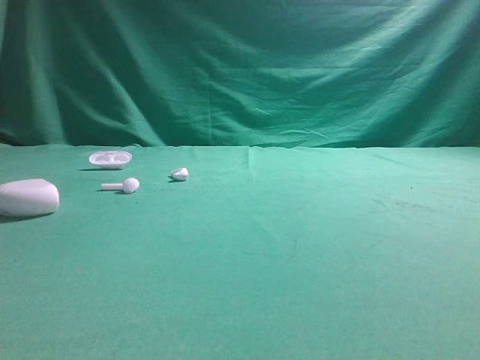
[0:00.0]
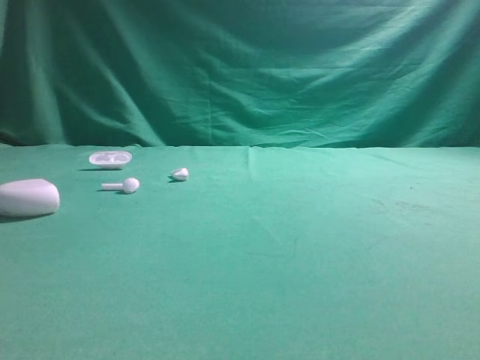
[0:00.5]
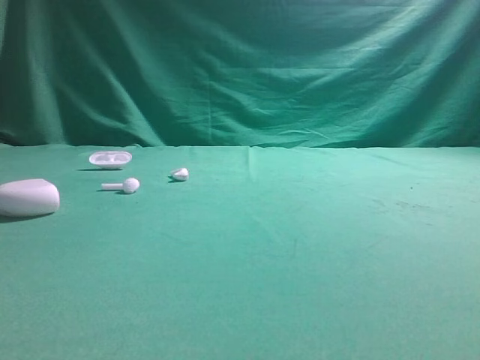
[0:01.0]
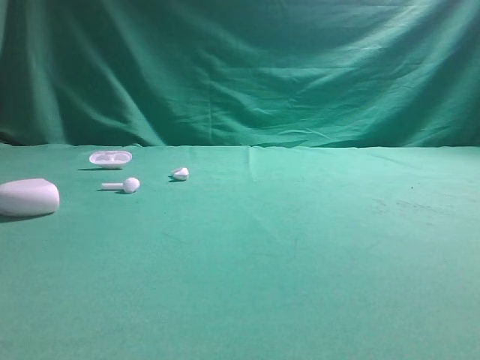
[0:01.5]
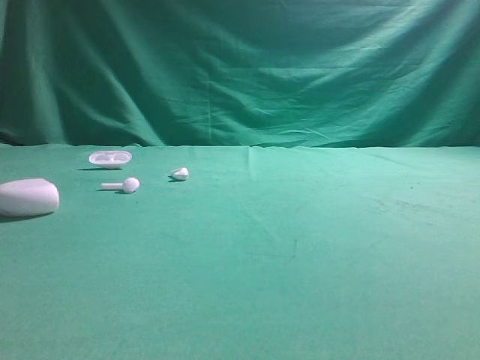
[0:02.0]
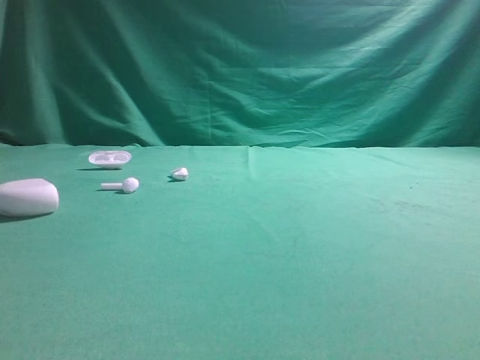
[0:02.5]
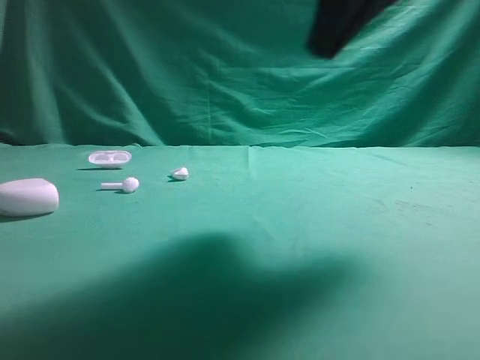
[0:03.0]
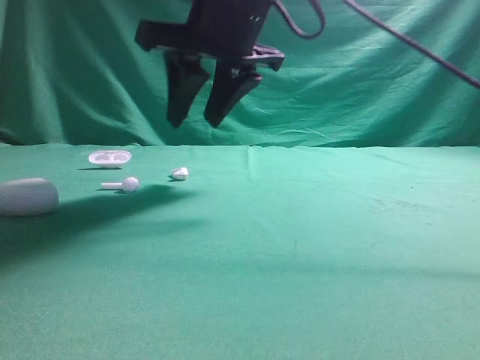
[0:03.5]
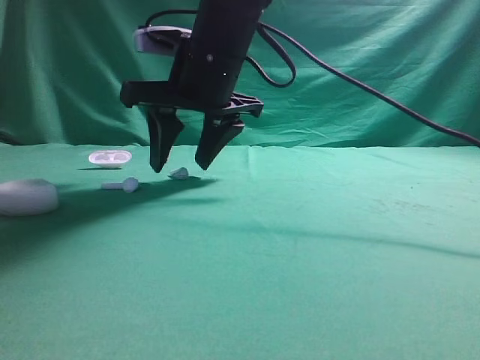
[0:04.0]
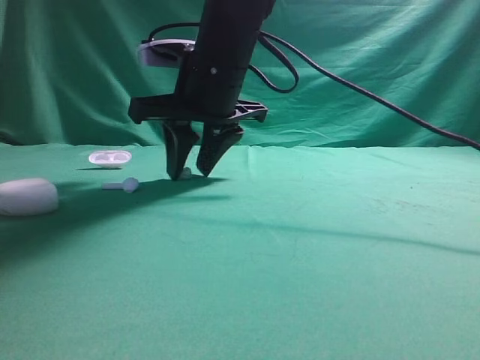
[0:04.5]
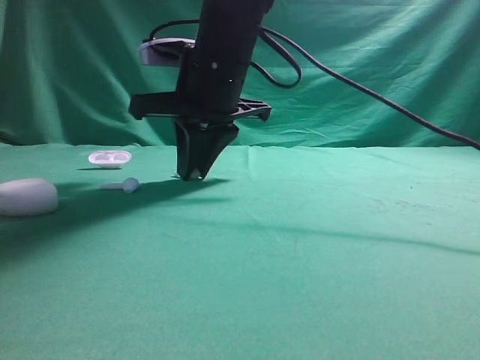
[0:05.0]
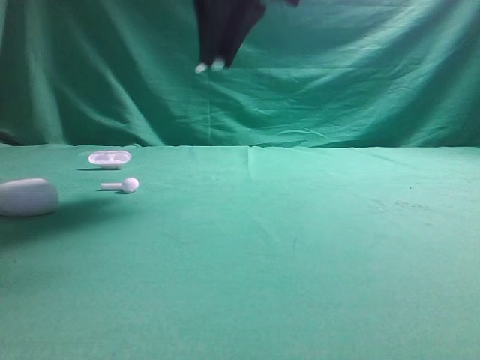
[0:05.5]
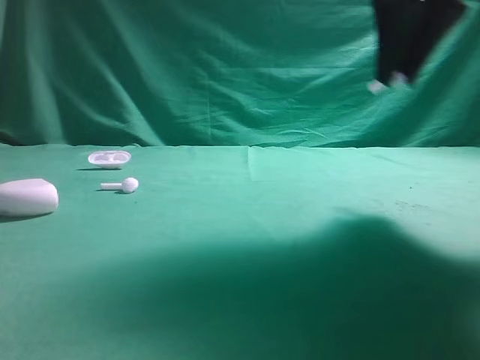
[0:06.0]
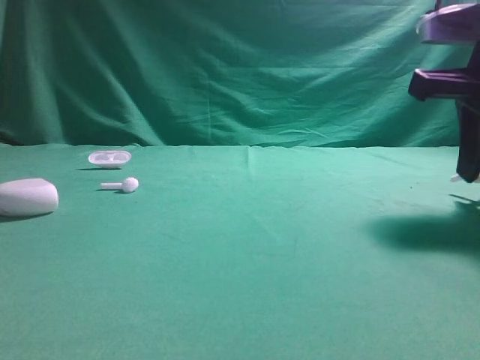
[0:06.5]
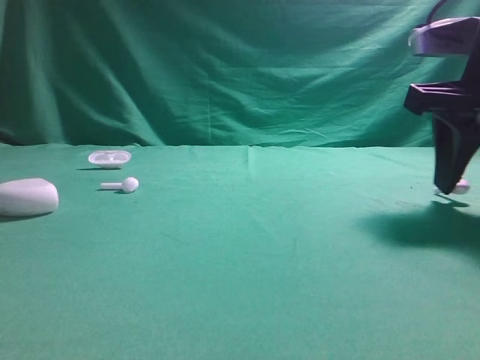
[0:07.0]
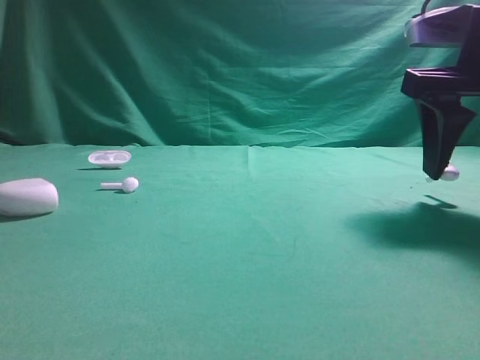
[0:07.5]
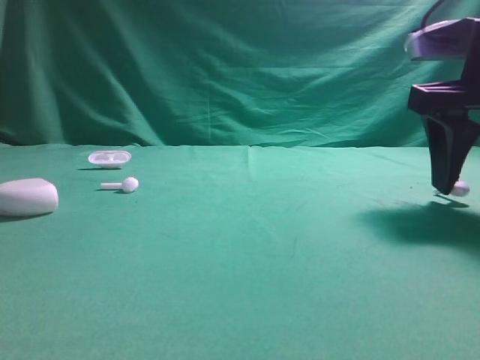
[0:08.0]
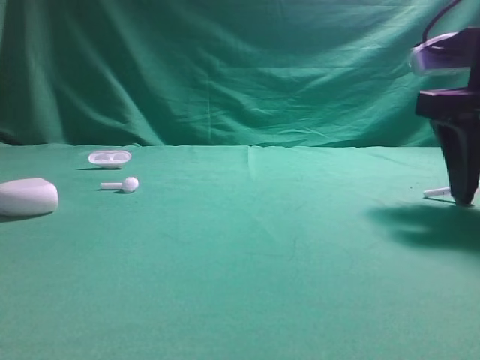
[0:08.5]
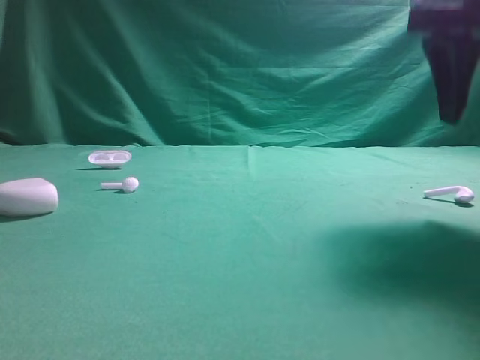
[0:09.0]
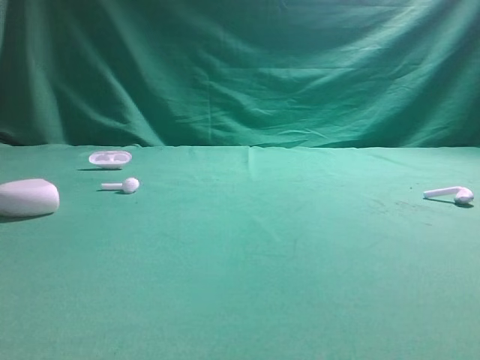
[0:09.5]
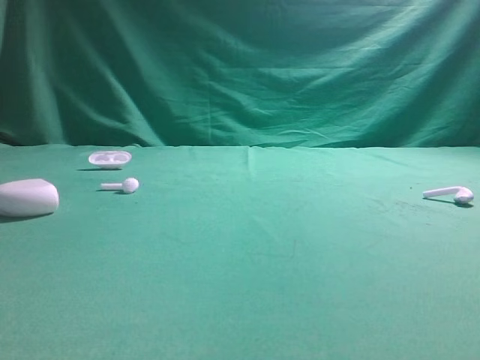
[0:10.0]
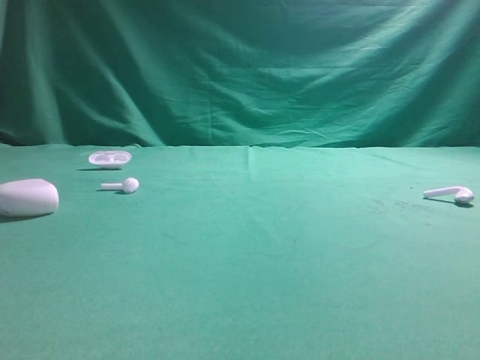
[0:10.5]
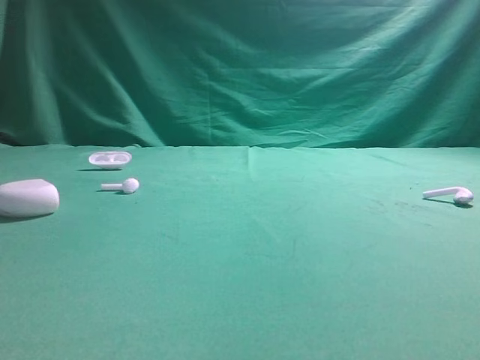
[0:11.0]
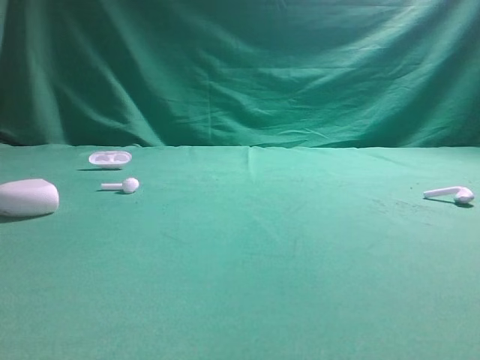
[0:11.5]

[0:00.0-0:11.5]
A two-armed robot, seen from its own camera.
Step, 0:00.0 to 0:05.0: Grasp the Bluetooth earbud.
Step, 0:05.5 to 0:09.0: Place bluetooth earbud on the right side of the table.
